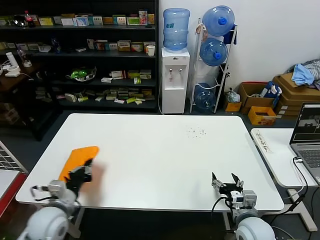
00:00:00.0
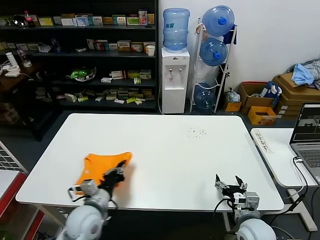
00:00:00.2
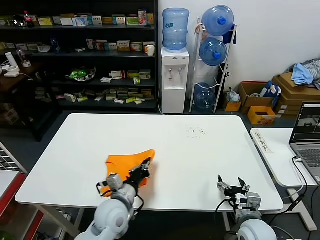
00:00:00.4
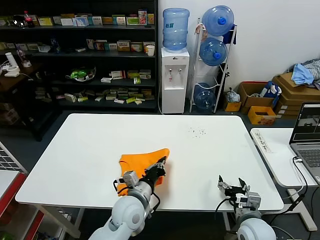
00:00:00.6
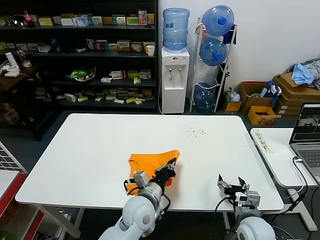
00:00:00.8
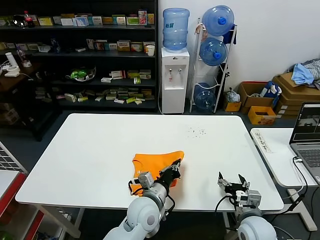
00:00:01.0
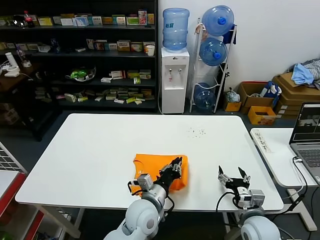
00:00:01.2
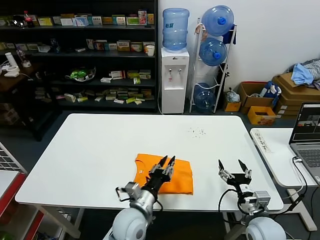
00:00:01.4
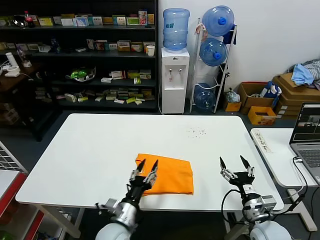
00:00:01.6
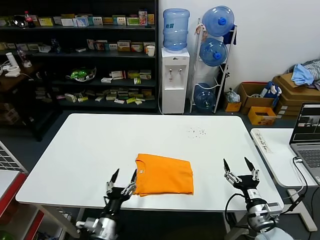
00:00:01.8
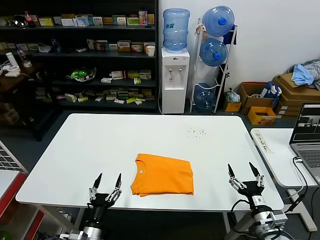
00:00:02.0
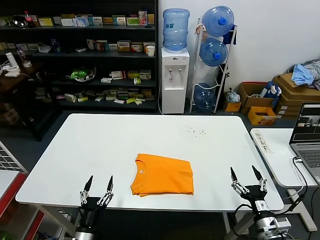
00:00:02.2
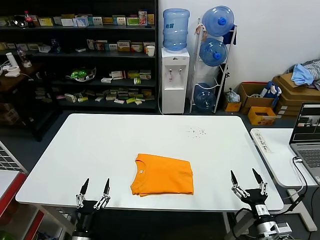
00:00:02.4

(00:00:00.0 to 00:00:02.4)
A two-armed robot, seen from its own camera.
Task of the whole recording: fold and organize the clothes.
00:00:00.0 - 00:00:01.2: The left gripper travels to the right by about 30 cm.
00:00:01.2 - 00:00:02.4: The left gripper travels to the left, backward and downward by some 30 cm, and opens up, while the right gripper moves backward and to the right, roughly 10 cm.

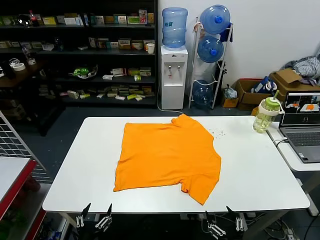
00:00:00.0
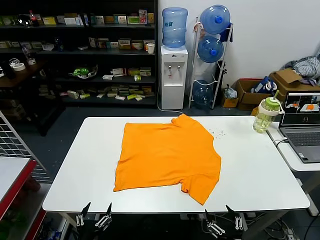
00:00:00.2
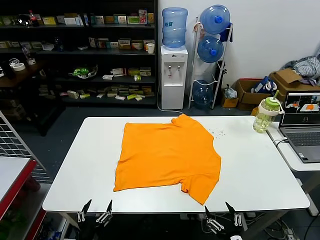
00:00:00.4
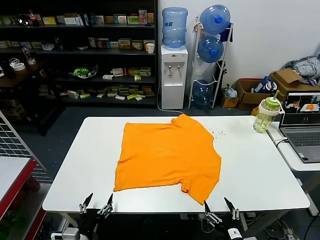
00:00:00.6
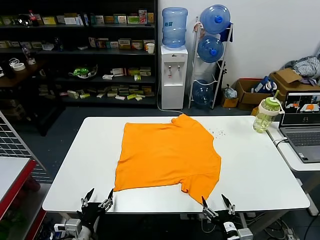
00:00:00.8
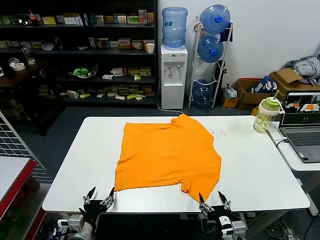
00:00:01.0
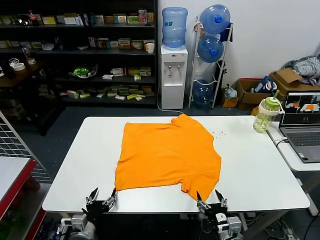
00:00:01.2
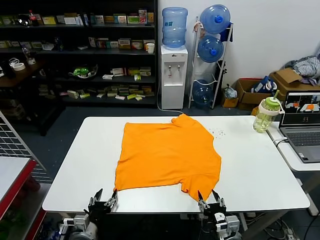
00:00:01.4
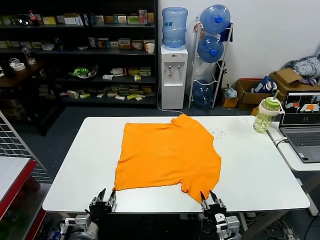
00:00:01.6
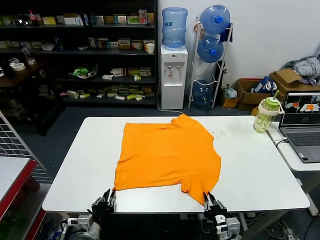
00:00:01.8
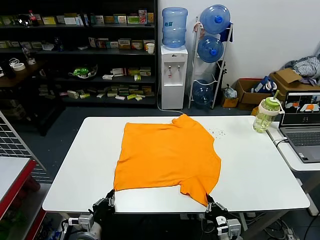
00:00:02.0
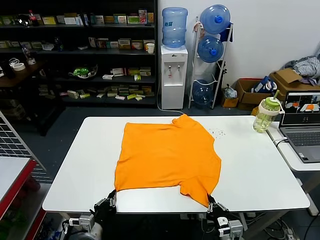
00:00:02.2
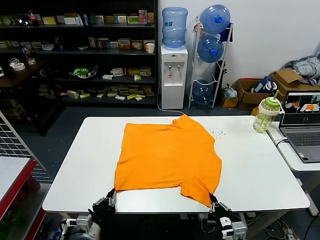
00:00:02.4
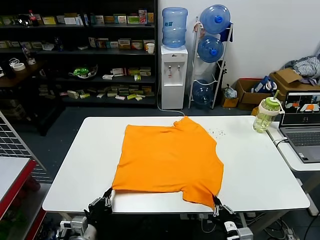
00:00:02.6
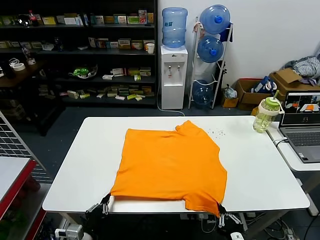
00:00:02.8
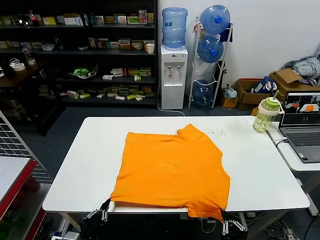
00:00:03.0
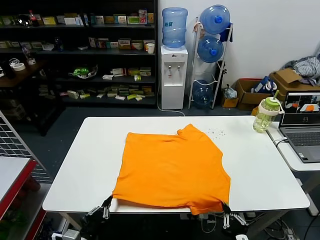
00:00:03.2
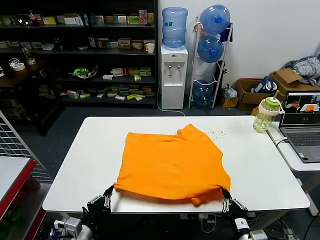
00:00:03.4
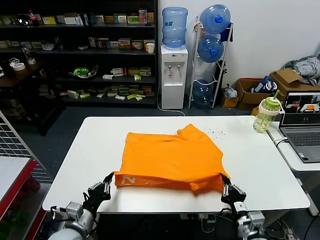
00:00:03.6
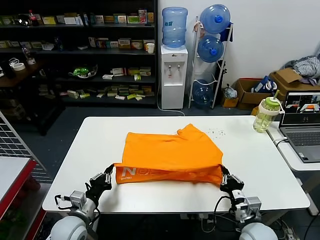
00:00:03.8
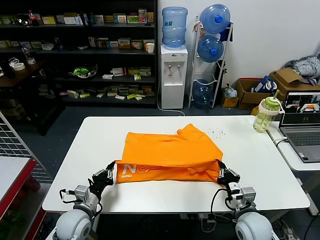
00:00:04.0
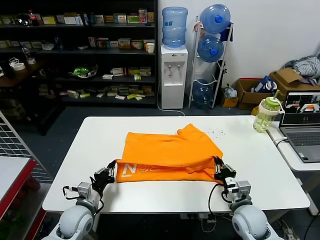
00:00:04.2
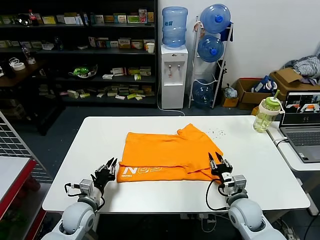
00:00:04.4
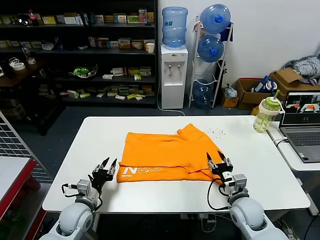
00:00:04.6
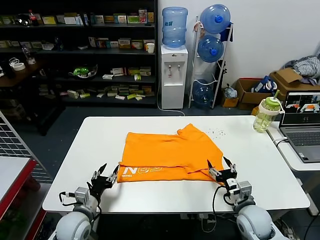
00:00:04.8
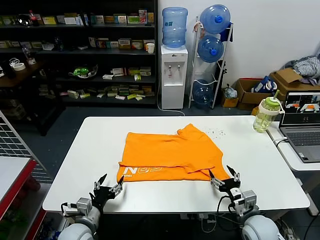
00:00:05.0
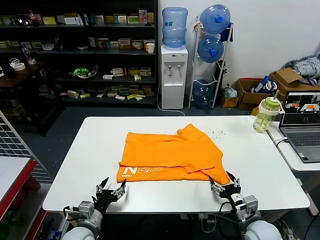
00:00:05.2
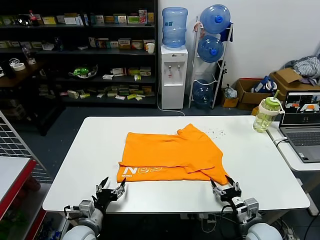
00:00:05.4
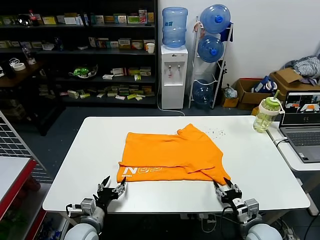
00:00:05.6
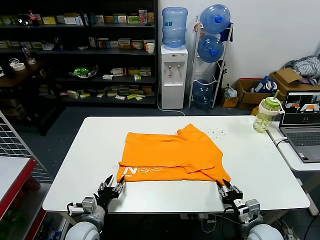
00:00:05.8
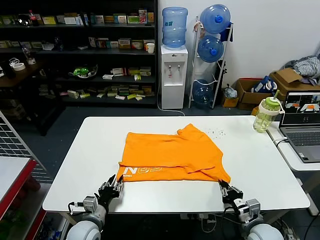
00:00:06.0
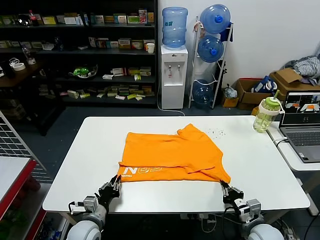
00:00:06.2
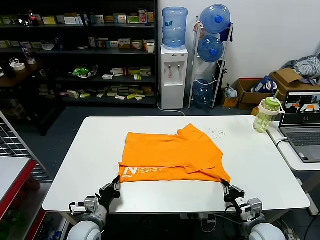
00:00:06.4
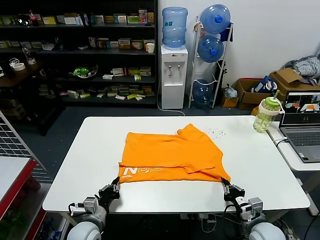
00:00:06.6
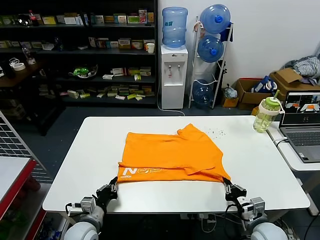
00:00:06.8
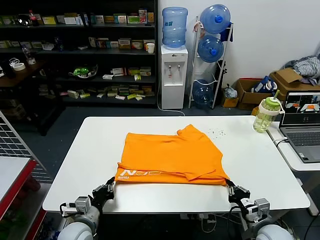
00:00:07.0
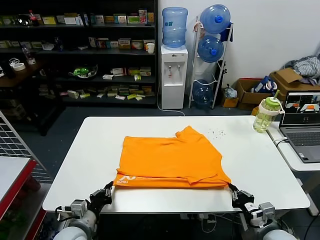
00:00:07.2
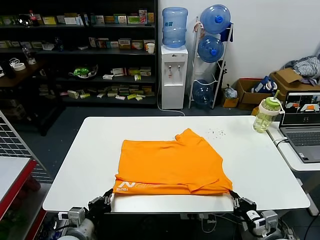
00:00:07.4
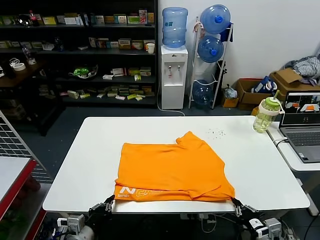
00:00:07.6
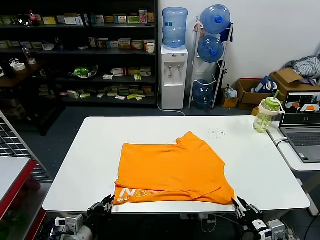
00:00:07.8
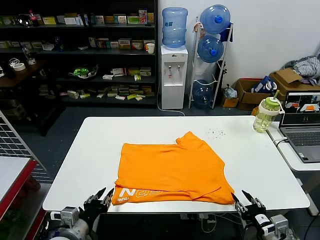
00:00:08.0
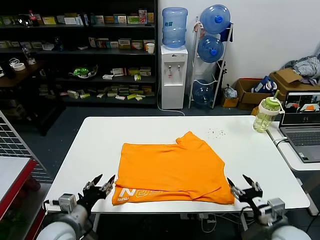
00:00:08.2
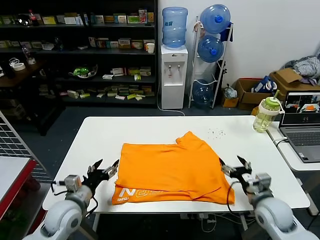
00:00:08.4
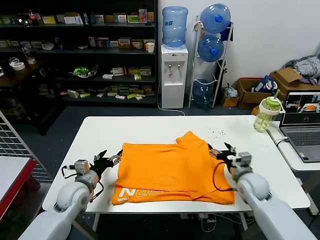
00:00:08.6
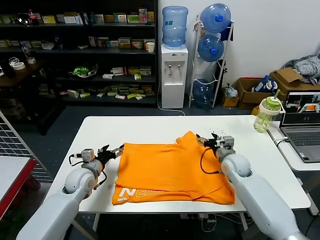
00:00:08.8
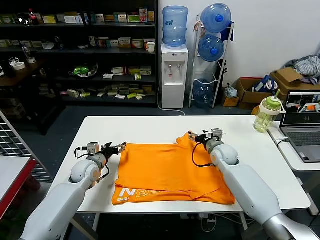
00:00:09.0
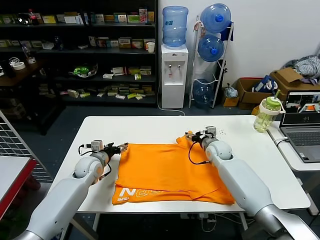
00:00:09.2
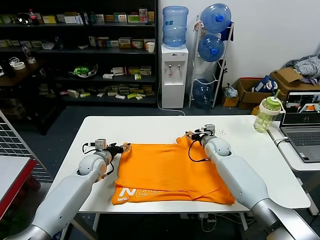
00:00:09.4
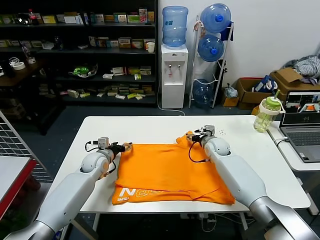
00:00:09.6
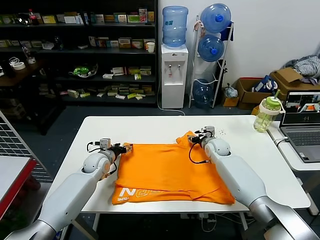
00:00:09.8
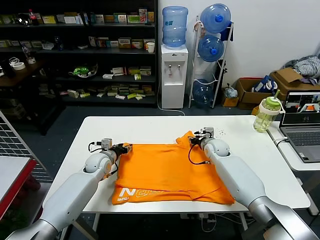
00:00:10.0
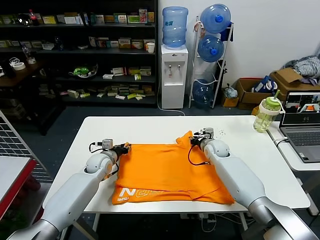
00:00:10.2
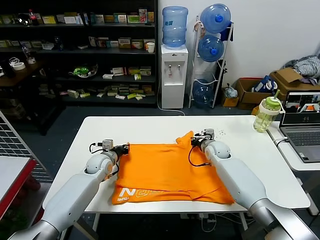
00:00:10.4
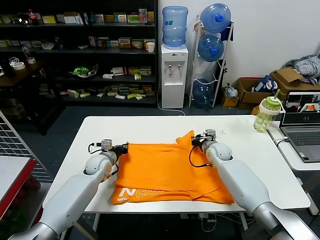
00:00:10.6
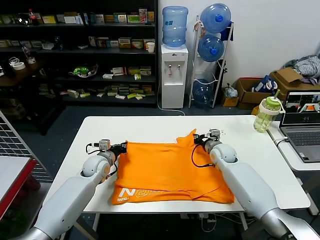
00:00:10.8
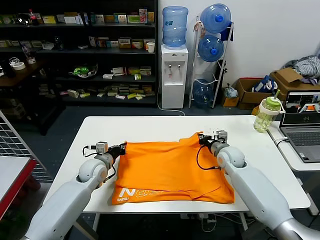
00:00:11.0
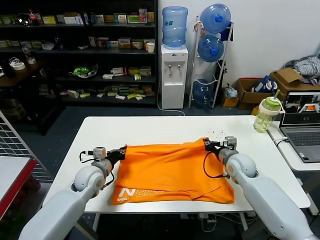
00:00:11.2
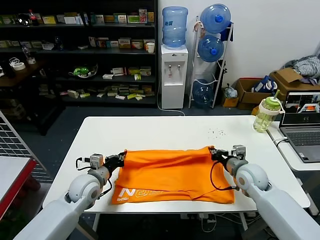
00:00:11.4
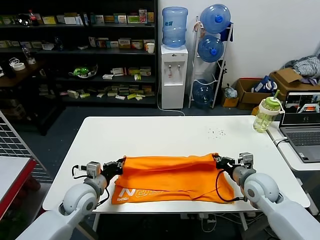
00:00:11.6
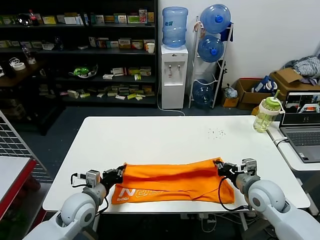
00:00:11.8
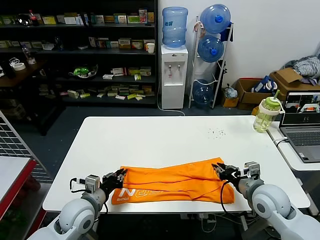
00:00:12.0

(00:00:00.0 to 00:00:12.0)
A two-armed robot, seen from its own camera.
Task of the whole recording: fold and organize the clothes.
Step, 00:00:00.0 - 00:00:02.0: use both grippers simultaneously to clamp the lower edge of the clothing fabric.
Step, 00:00:02.2 - 00:00:04.2: use both grippers to drag the lower edge of the fabric forward and fold it over the upper edge.
Step, 00:00:04.4 - 00:00:07.6: Drag the clothes downward with both gripper.
Step, 00:00:07.8 - 00:00:10.4: use both grippers simultaneously to clamp the upper edge of the clothing fabric.
Step, 00:00:10.6 - 00:00:12.0: use both grippers to drag the upper edge of the fabric backward and fold it over the lower edge.
00:00:01.6 - 00:00:03.0: The right gripper heads backward, covering some 10 cm, and closes up. Meanwhile the left gripper shifts roughly 10 cm backward and upward, and closes up.
00:00:03.0 - 00:00:04.4: The two grippers go some 20 cm forward. The right gripper opens its fingers.
00:00:04.4 - 00:00:06.0: The right gripper goes roughly 10 cm backward and to the right, and closes; the left gripper changes place by approximately 5 cm, and opens, then closes once more.
00:00:06.0 - 00:00:07.6: Both grippers move backward and upward, some 10 cm. The left gripper closes its fingers.
00:00:07.6 - 00:00:09.0: The two grippers go roughly 30 cm forward. The left gripper opens up, while the right gripper opens up.
00:00:09.0 - 00:00:10.4: The right gripper closes, while the left gripper changes place by some 5 cm, and closes its fingers.
00:00:10.4 - 00:00:12.0: The two grippers go some 20 cm backward.

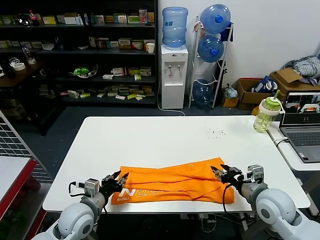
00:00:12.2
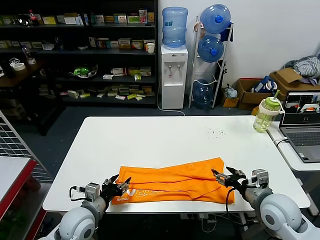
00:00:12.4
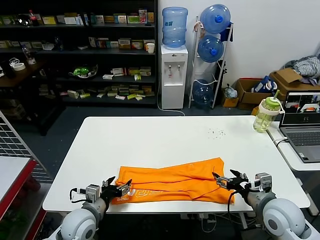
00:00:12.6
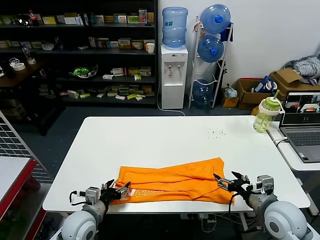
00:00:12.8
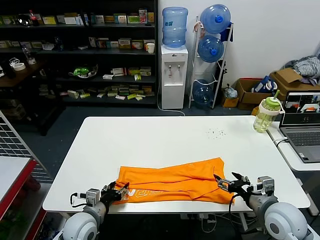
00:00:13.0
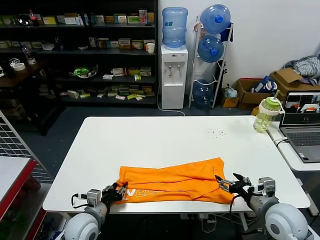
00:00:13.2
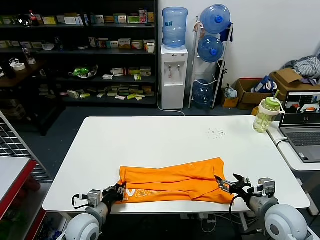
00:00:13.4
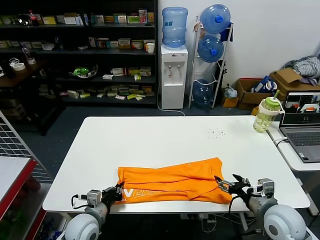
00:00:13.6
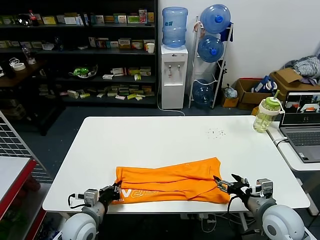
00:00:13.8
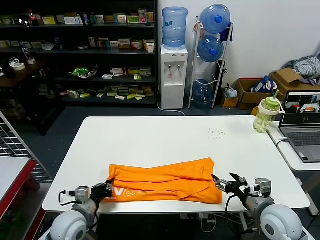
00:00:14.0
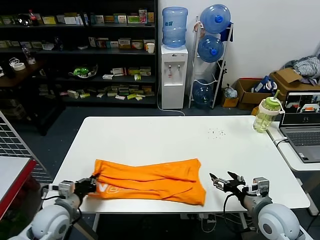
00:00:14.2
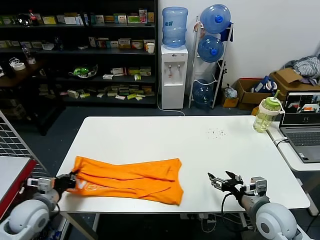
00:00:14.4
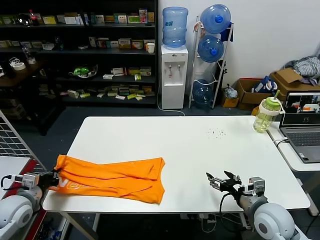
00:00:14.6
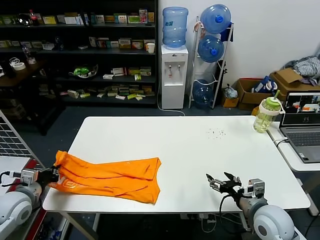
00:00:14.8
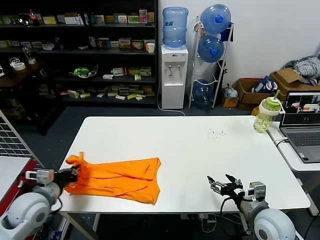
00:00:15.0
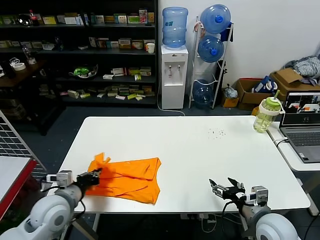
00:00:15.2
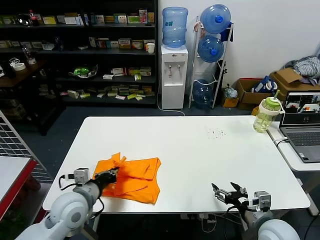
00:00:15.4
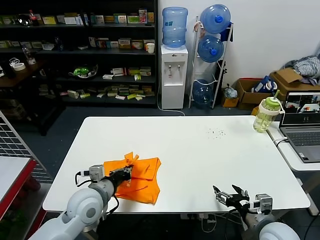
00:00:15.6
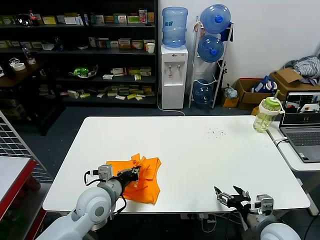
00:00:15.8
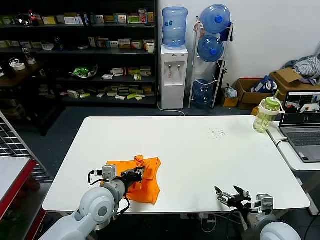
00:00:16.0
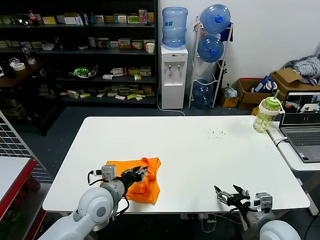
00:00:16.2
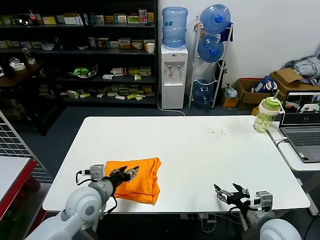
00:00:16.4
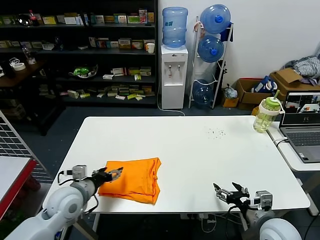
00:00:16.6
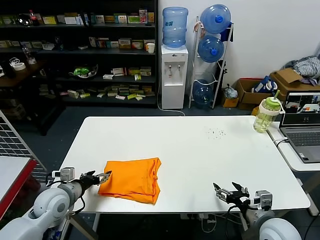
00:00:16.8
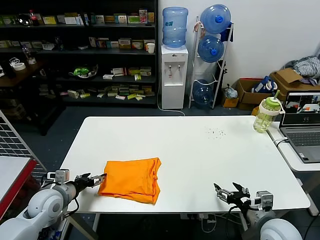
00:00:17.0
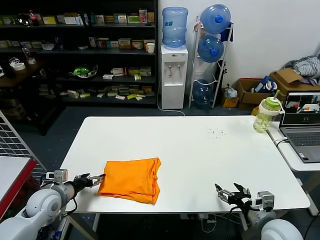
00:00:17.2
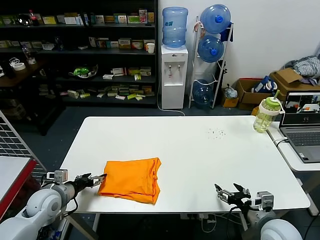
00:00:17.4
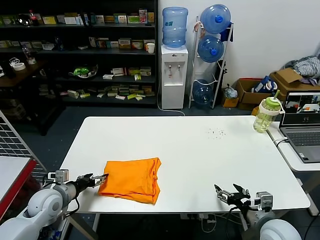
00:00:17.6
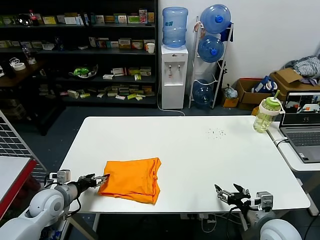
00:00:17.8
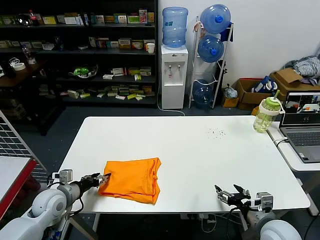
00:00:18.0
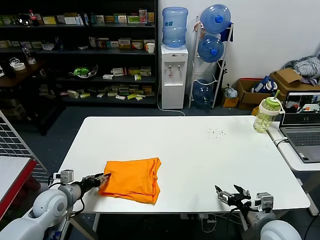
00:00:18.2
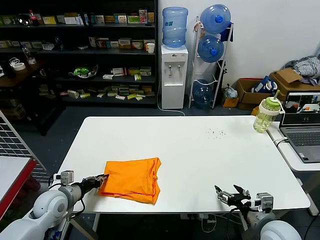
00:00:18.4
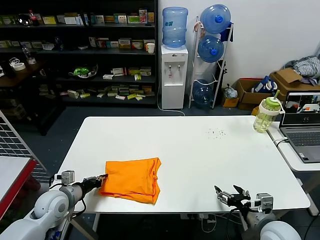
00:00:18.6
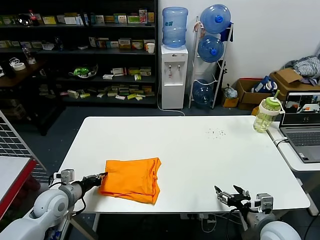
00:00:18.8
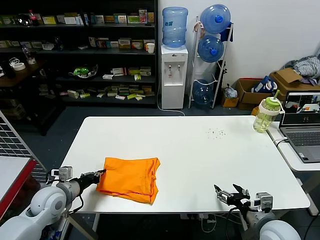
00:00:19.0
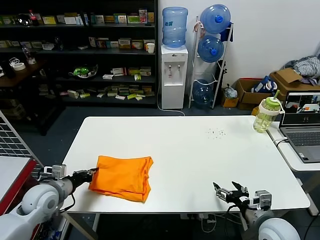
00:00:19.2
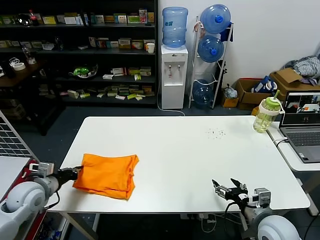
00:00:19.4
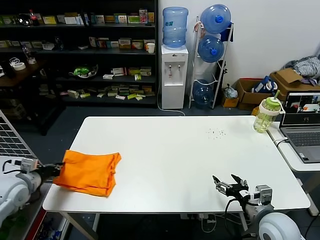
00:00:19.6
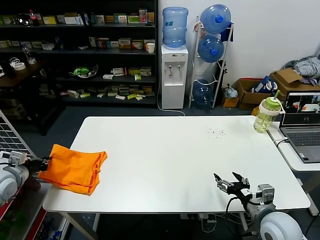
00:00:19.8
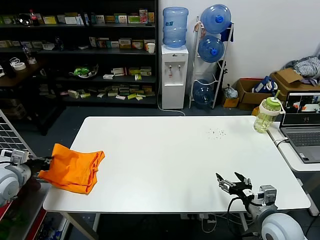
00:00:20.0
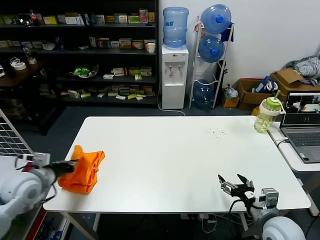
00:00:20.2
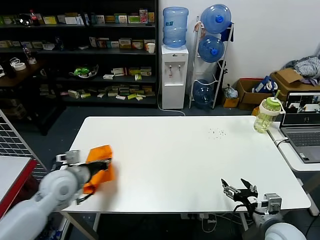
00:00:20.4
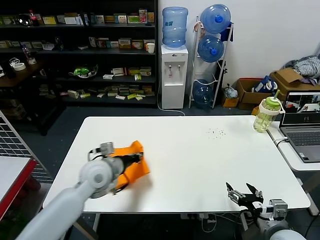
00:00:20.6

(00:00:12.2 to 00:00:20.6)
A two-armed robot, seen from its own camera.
Task of the whole recording: fold and organize the clothes.
Step, 00:00:12.2 - 00:00:13.6: use the left gripper to clamp the left edge of the fabric.
Step, 00:00:13.8 - 00:00:16.2: use the left gripper to drag the left edge of the fabric to the left and folds it over the right edge.
00:00:12.2 - 00:00:13.6: The left gripper moves downward, about 5 cm, and closes its fingers. The right gripper opens its fingers.
00:00:13.6 - 00:00:15.0: The left gripper moves to the left and upward, approximately 20 cm.
00:00:15.0 - 00:00:16.4: The left gripper travels to the right by approximately 20 cm, and opens its fingers.
00:00:16.4 - 00:00:17.8: The left gripper moves to the left, roughly 15 cm, and opens.
00:00:17.8 - 00:00:19.2: The left gripper closes.
00:00:19.2 - 00:00:20.6: The left gripper is displaced to the right and upward by roughly 15 cm.
